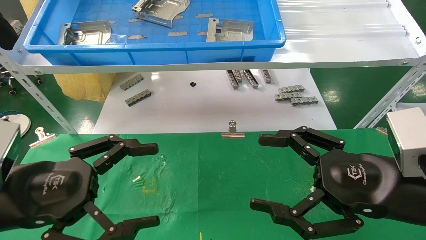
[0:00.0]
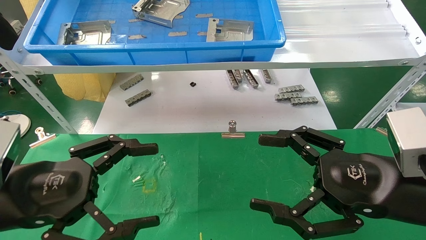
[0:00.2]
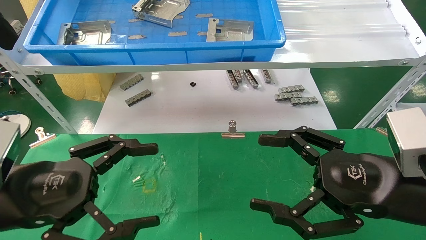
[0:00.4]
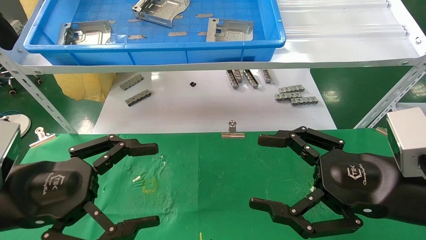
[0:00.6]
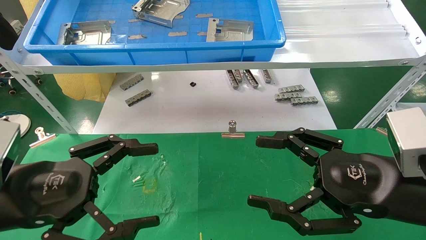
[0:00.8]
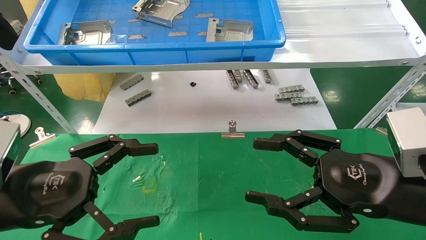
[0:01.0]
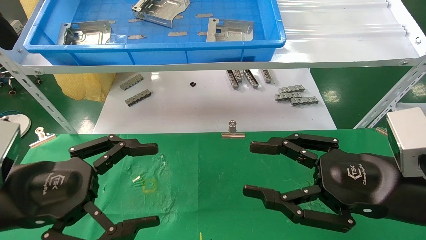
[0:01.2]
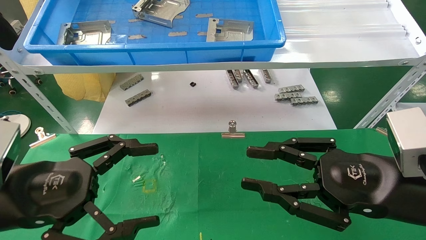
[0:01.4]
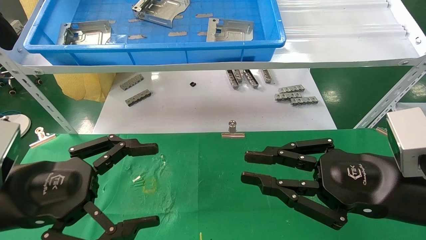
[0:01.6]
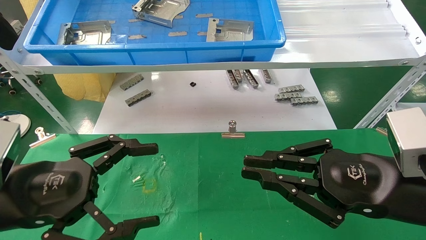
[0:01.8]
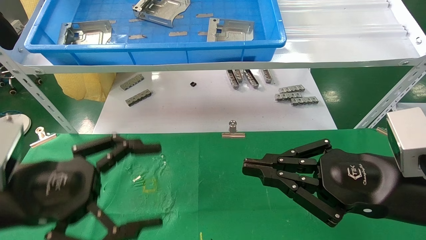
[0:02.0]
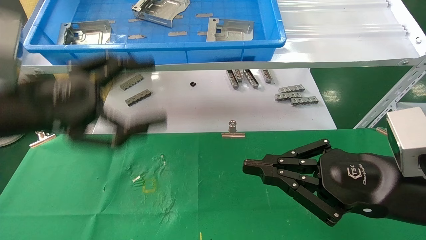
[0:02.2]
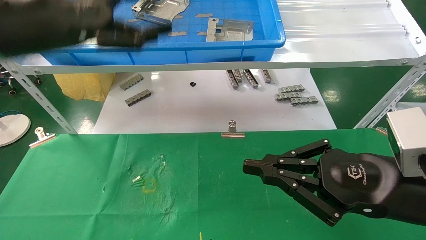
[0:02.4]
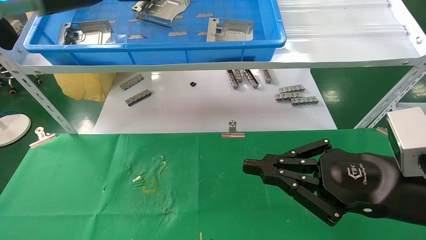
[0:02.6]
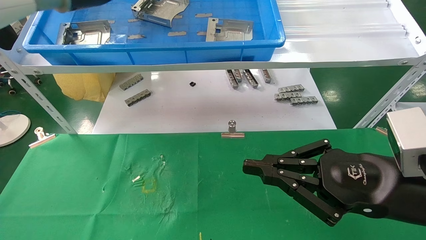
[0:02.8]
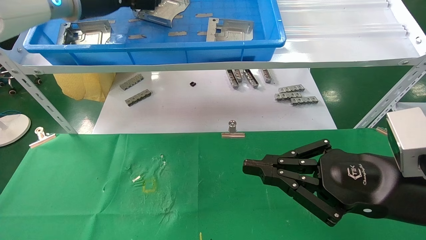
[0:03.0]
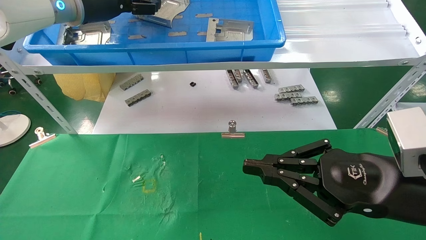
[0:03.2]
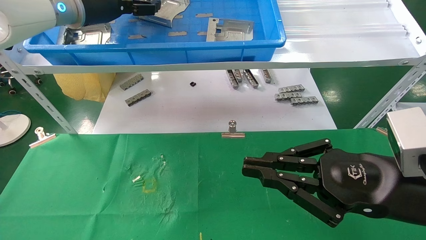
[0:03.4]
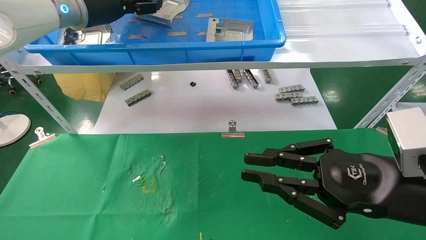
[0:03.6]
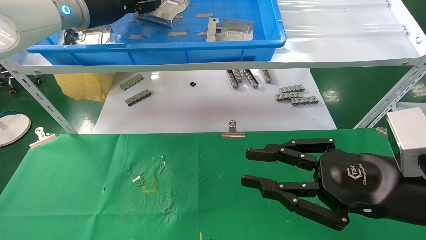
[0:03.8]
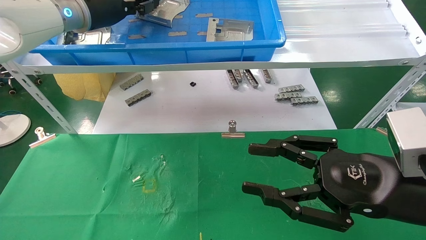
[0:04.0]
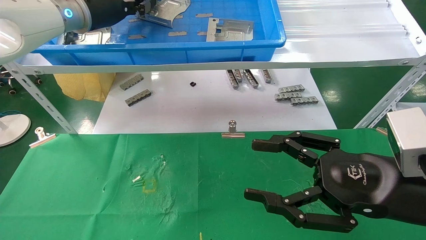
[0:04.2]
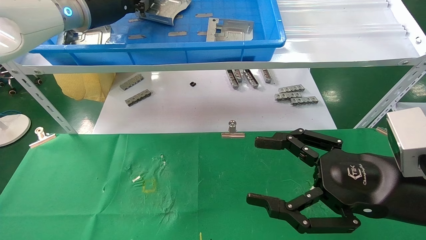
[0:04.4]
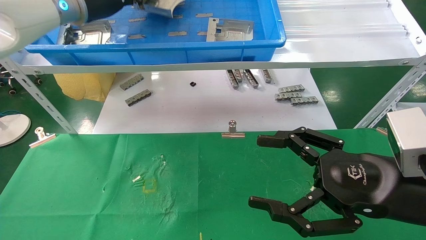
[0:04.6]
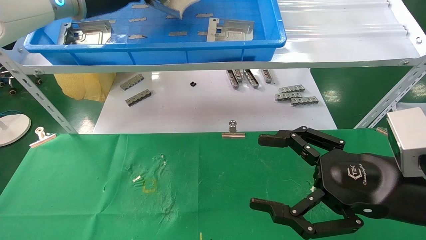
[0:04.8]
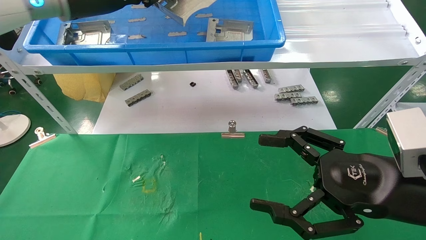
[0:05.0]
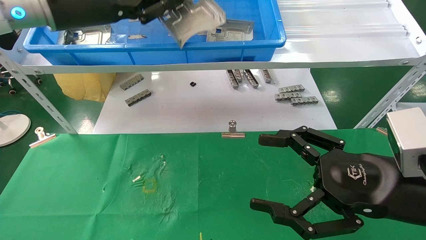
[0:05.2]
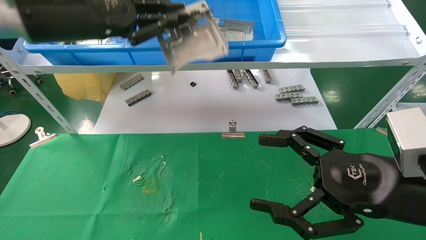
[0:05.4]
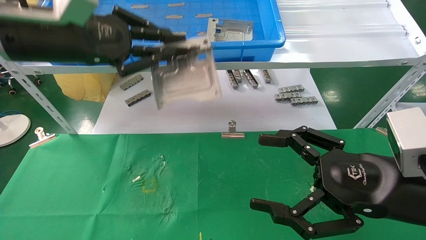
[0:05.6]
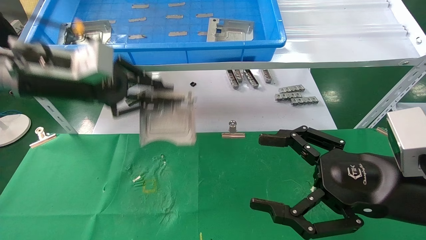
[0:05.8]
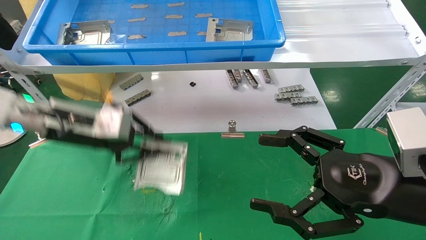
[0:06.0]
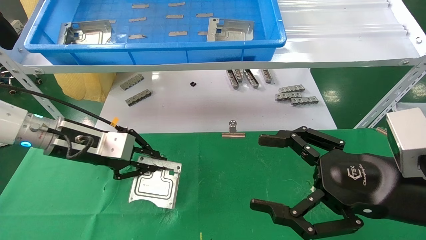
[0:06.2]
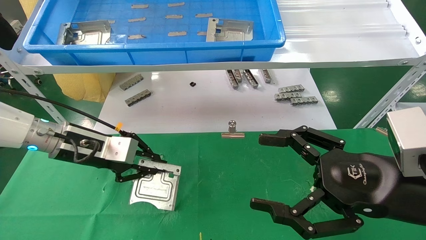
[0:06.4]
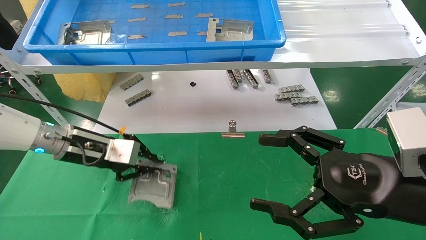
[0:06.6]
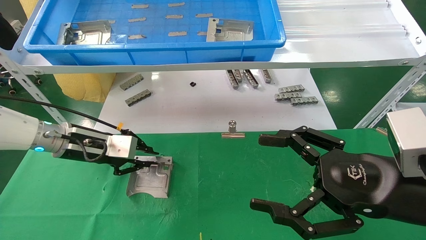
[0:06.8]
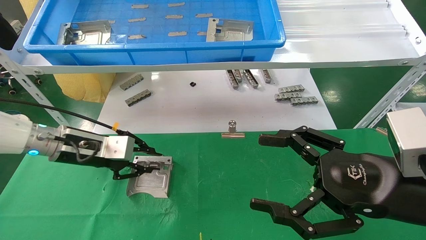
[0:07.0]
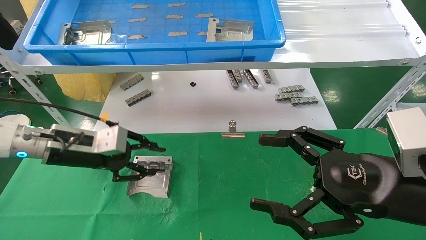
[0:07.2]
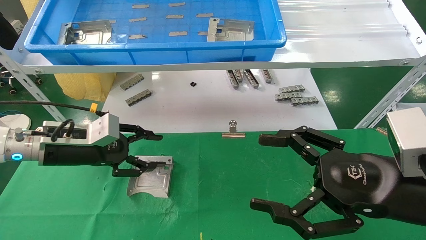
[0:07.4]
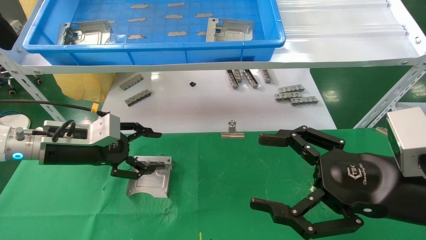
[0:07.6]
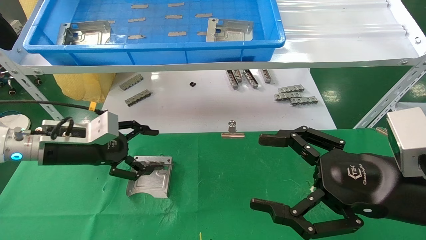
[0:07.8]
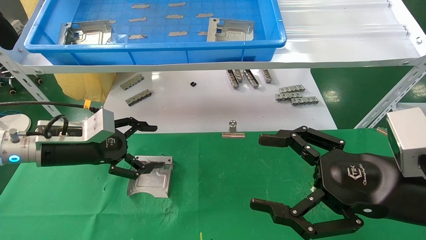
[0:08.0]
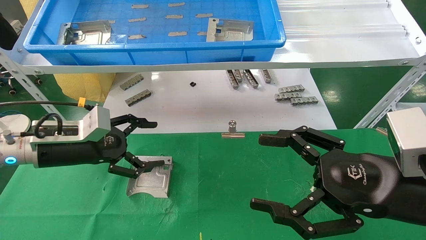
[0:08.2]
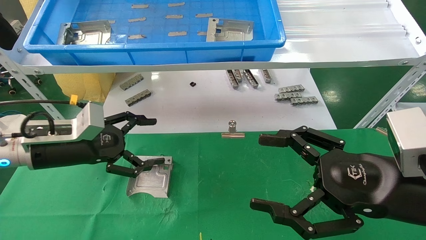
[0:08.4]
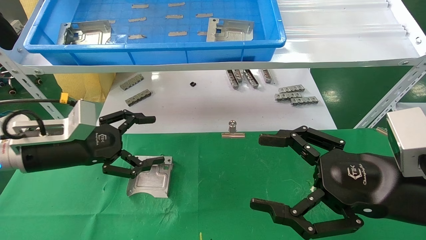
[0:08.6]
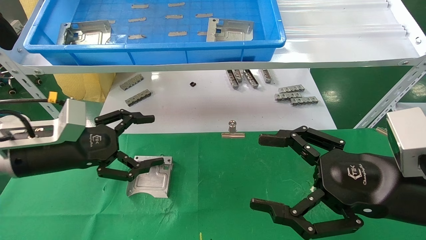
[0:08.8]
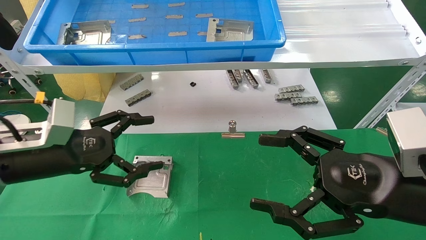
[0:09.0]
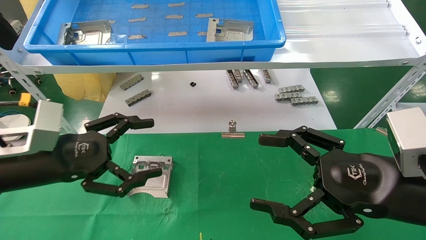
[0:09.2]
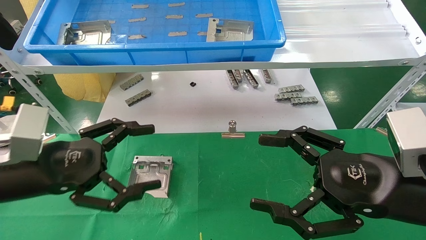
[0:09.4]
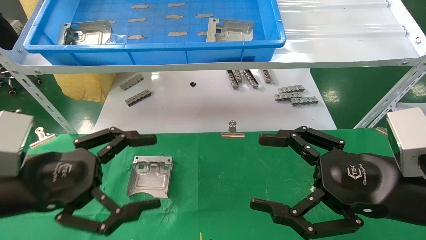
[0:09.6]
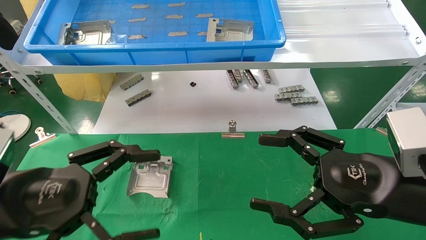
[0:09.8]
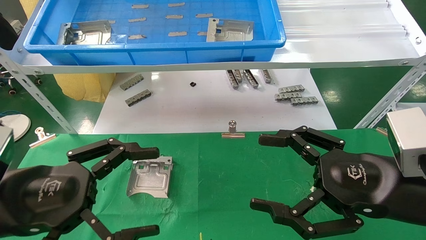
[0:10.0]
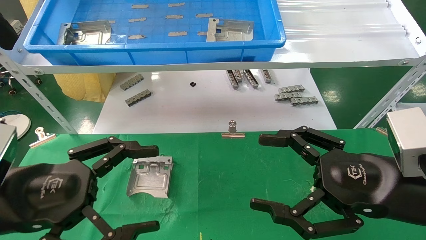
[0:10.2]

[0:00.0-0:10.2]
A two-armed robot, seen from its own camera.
Task of the whole recording: use the mechanical arm to pick up the parts and place them on the table.
Step, 0:02.0 to 0:04.2: Pick up the hard drive bracket from the feeding area.
Step, 0:04.4 to 0:07.2: Place the hard drive bracket into the box.
0:00.0 to 0:01.4: The right gripper closes up.
0:01.4 to 0:03.0: The right gripper closes its fingers. The left gripper moves upward and forward, some 35 cm.
0:03.0 to 0:04.4: The right gripper opens its fingers. The left gripper closes.
0:04.4 to 0:05.8: The left gripper shifts approximately 15 cm downward and backward.
0:05.8 to 0:07.2: The left gripper goes approximately 15 cm downward.
0:07.2 to 0:08.8: The left gripper goes some 5 cm backward, and opens up.
0:08.8 to 0:10.2: The left gripper moves backward, roughly 10 cm.

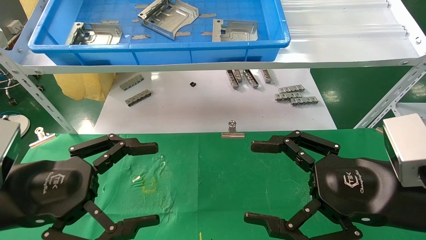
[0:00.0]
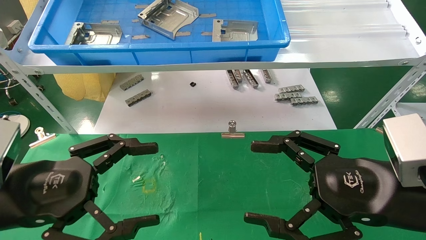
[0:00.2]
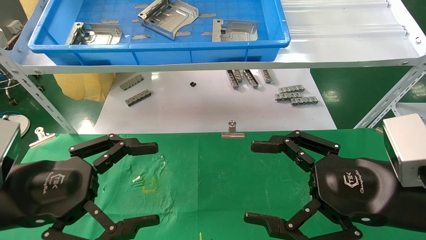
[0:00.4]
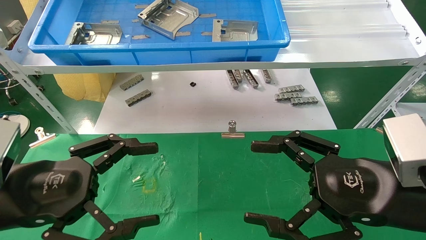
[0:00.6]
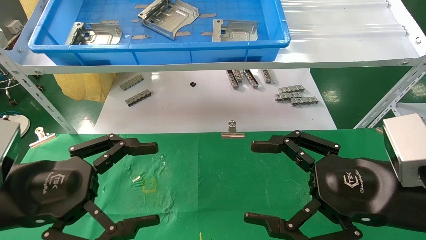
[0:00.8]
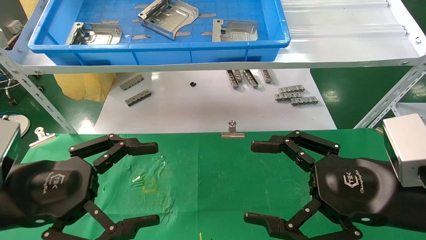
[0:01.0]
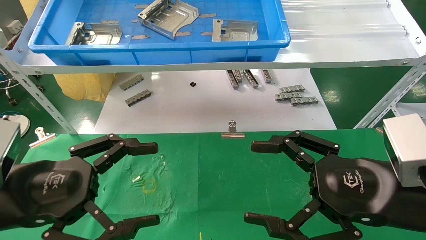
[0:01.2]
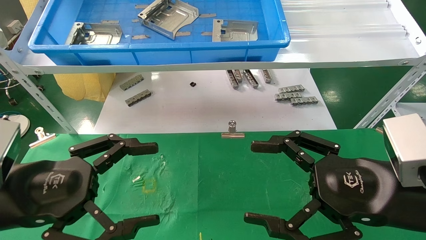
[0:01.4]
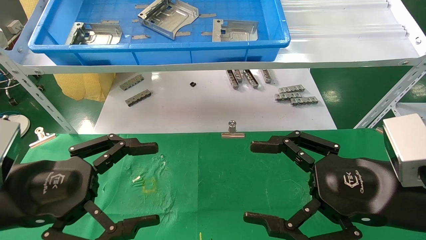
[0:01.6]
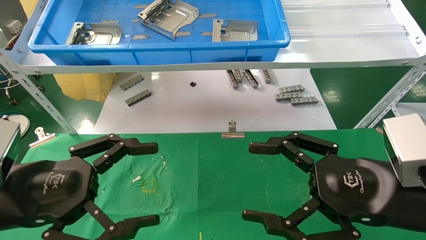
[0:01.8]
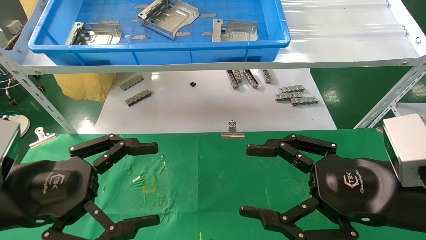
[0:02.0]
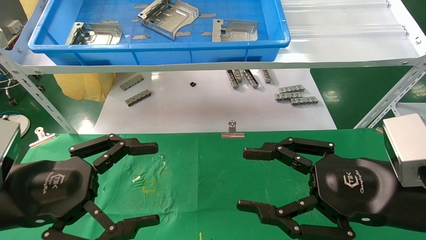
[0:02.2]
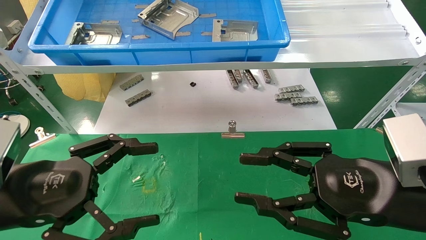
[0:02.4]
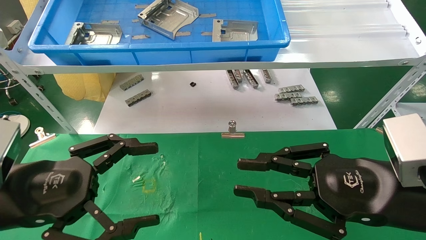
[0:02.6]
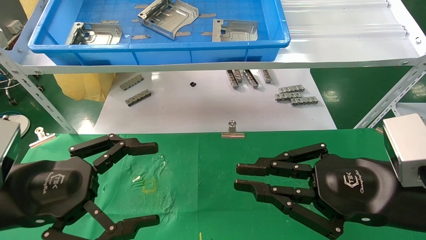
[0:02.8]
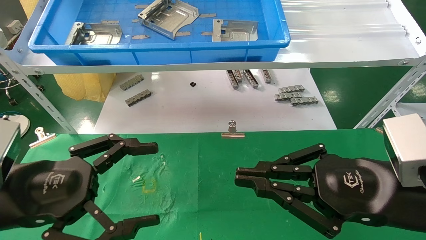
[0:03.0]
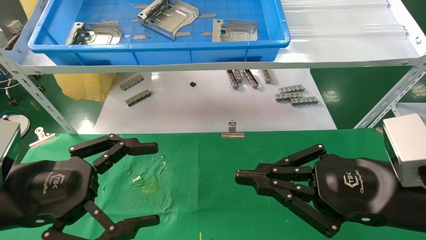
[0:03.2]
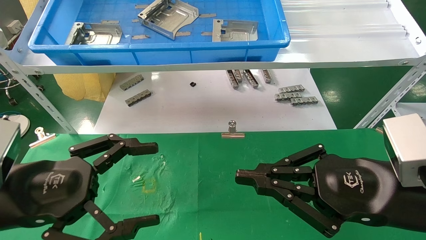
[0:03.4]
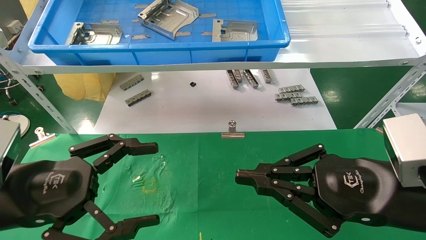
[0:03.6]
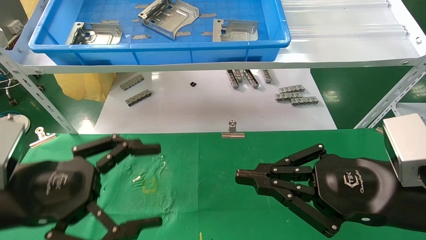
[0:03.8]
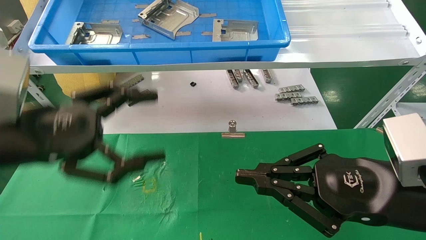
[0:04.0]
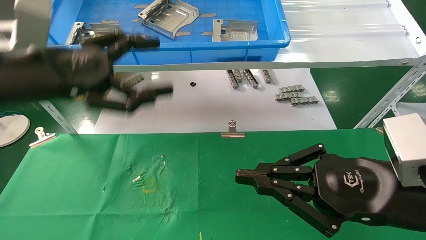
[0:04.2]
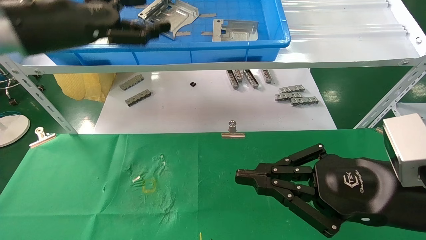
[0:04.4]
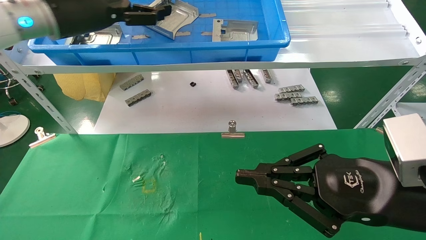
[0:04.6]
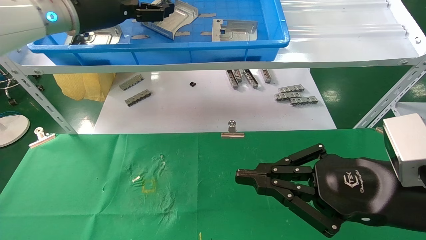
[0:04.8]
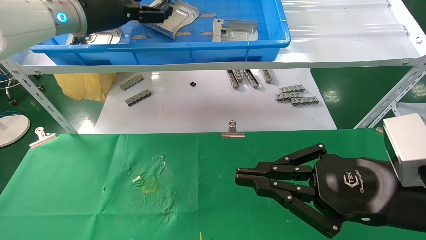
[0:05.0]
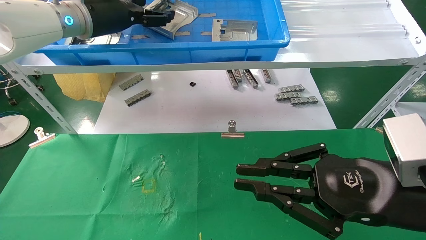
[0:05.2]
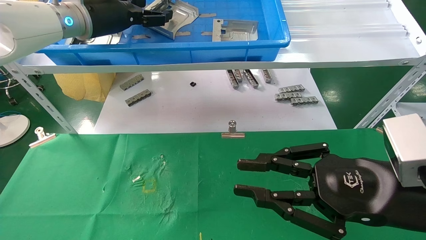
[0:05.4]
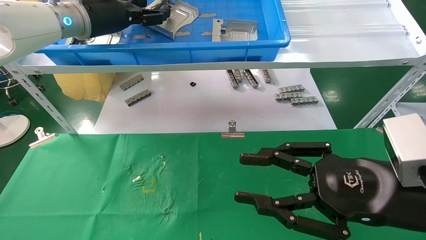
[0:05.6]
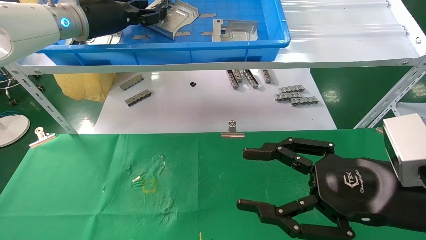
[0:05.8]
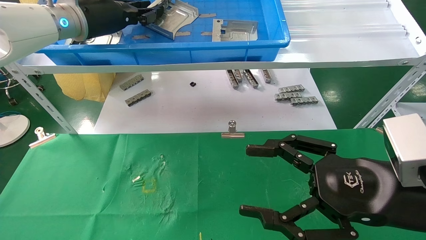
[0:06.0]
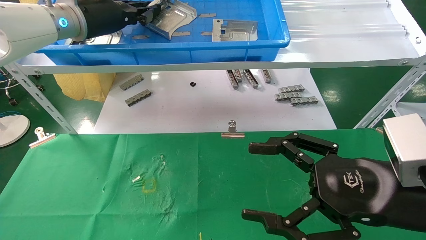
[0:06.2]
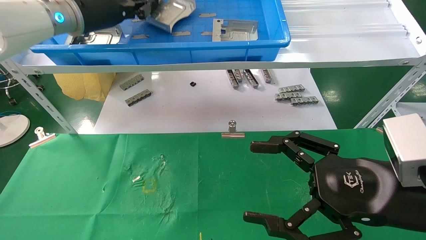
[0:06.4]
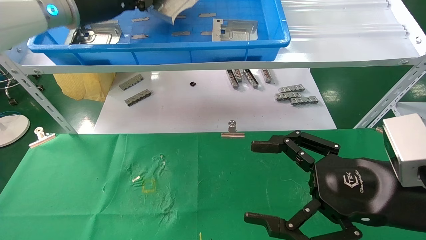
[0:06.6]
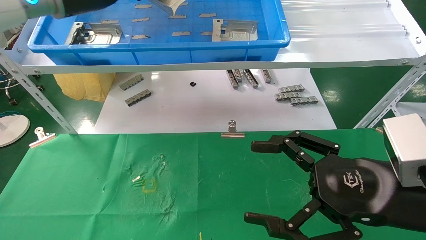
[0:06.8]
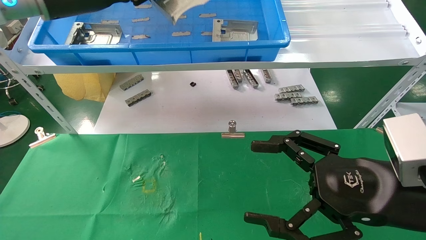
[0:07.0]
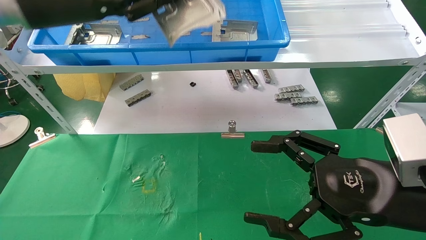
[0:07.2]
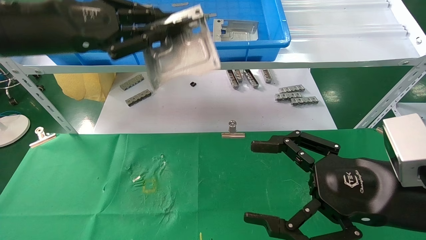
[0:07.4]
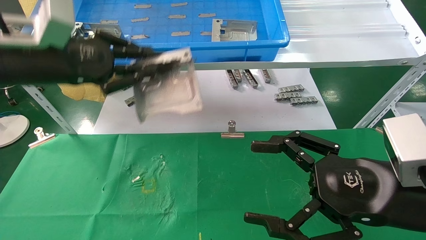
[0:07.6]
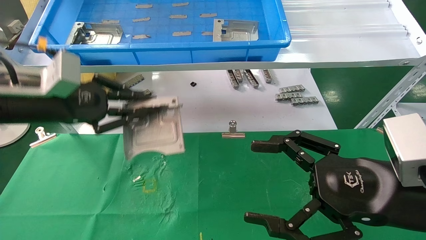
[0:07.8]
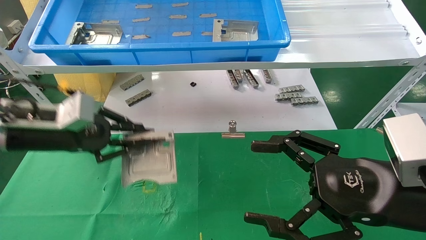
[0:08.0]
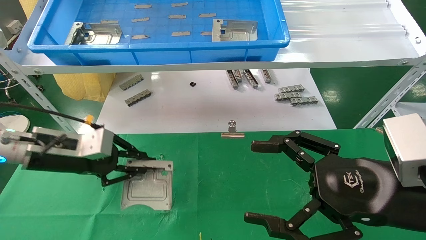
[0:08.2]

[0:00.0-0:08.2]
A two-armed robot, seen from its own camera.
Task of the whole recording: use the mechanical arm to pick up the parts and place them on the table.
Step, 0:03.8 to 0:06.0: Pick up the hard drive bracket from the feeding area.
0:00.0 to 0:01.6: Neither gripper changes place.
0:01.6 to 0:03.2: The right gripper closes.
0:03.2 to 0:05.0: The left gripper is displaced forward and upward by roughly 30 cm.
0:05.0 to 0:06.6: The right gripper opens up; the left gripper closes its fingers.
0:06.6 to 0:08.2: The left gripper moves downward, about 25 cm.
